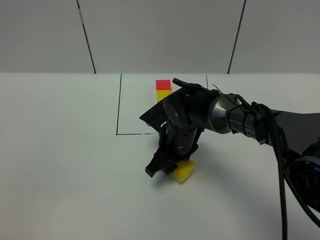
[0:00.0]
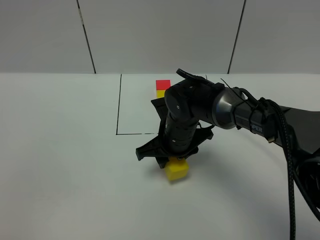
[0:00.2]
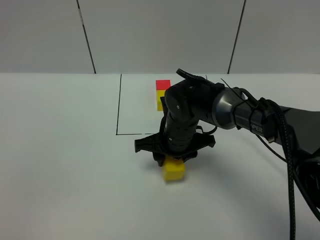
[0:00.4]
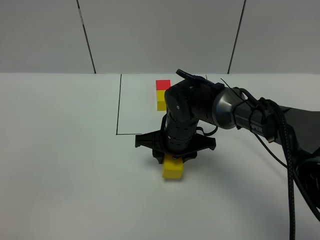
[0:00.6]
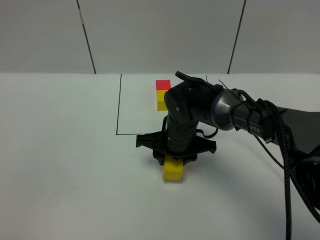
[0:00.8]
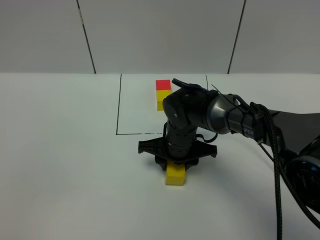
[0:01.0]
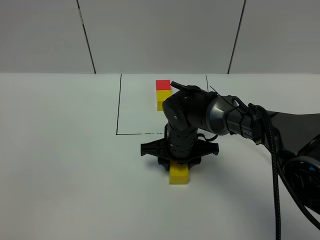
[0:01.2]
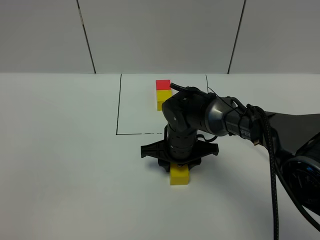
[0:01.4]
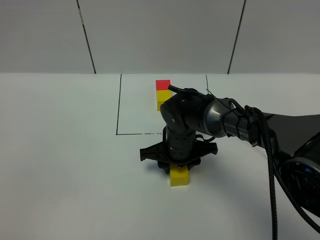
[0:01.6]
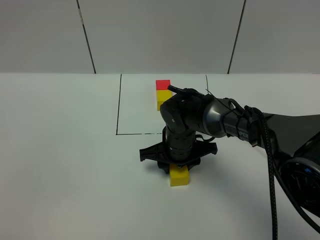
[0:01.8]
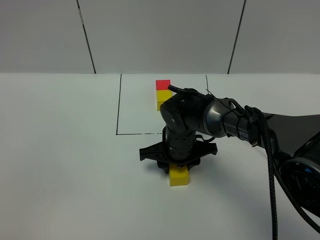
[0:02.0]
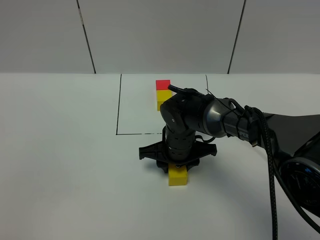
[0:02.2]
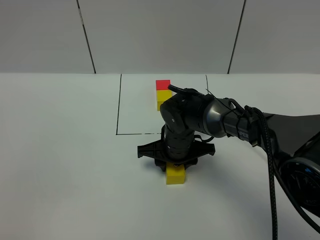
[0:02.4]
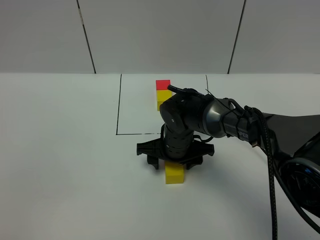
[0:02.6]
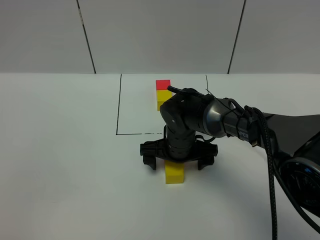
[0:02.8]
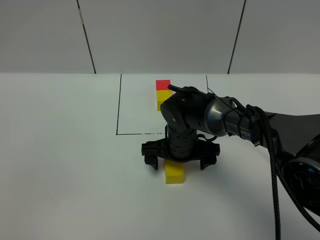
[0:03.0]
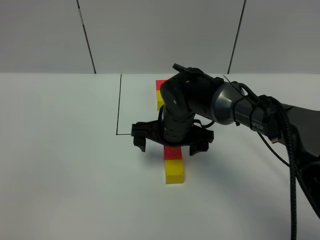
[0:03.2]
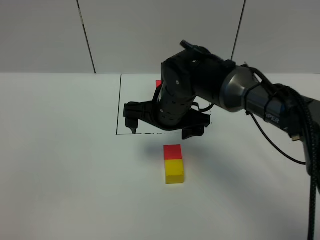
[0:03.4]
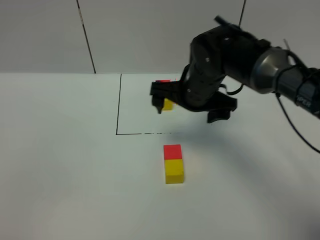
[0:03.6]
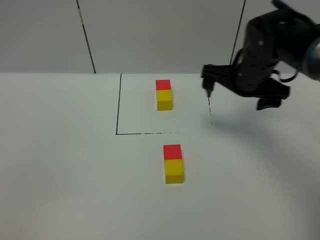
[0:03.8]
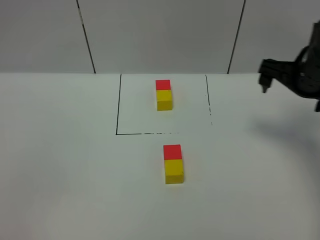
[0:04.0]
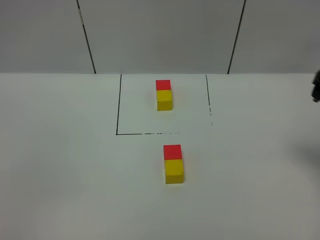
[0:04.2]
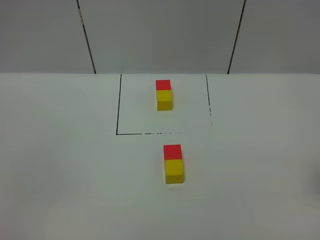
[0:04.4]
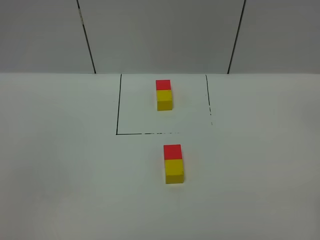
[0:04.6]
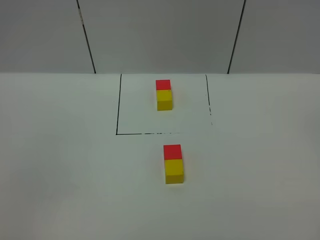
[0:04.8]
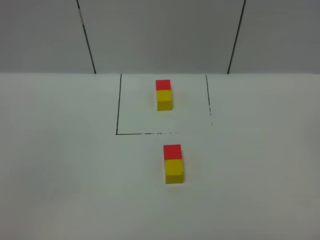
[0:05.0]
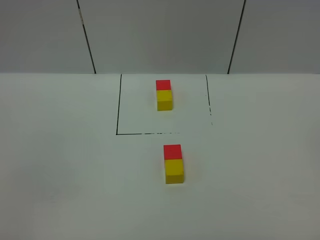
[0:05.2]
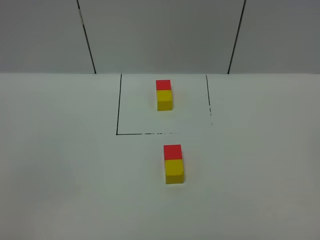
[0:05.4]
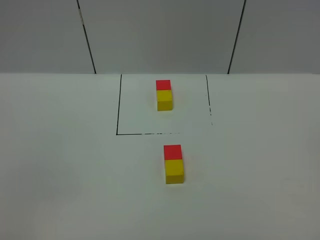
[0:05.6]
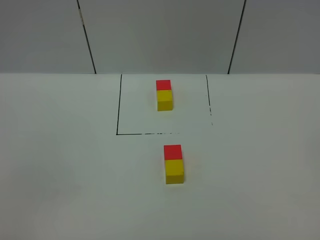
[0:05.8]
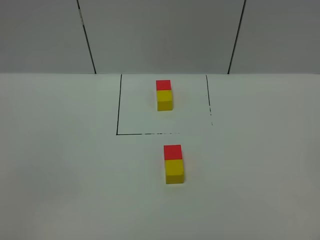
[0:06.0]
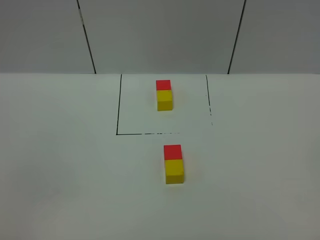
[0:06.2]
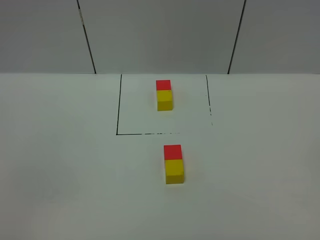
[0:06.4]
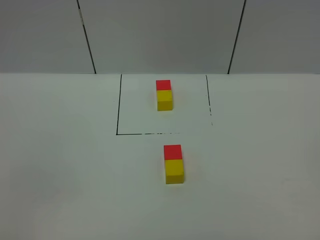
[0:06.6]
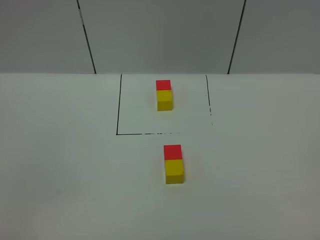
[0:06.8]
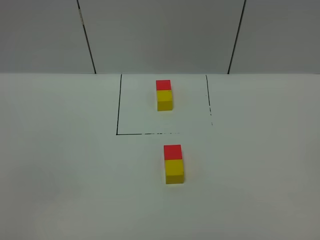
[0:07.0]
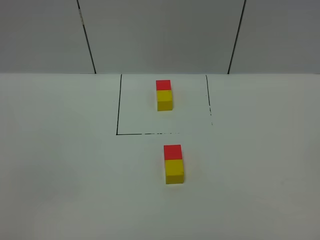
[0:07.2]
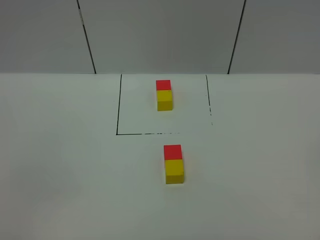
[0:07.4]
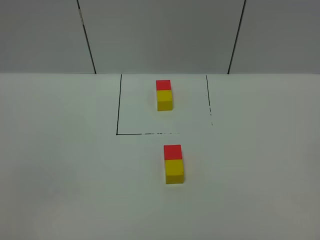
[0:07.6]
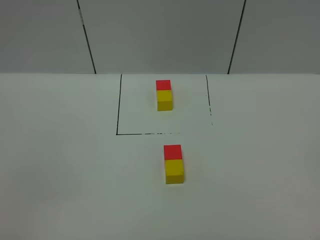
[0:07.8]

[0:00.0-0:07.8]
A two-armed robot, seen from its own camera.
Task of the whole recording: According to the building block template in front, assemble the scattered blocks together.
Step, 0.0 to 3.6 s: Adjust the pose of the building blocks.
1.6 to 3.2 s: The right gripper heads upward, covering approximately 5 cm, and opens up.
3.2 to 4.6 s: The right gripper heads to the right and backward, covering roughly 40 cm.
6.2 to 7.8 s: Both grippers stay about where they are.

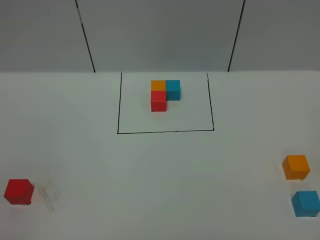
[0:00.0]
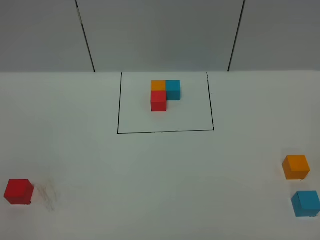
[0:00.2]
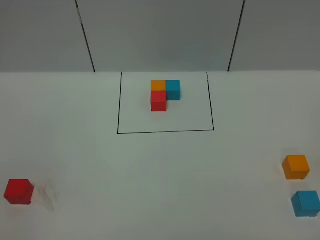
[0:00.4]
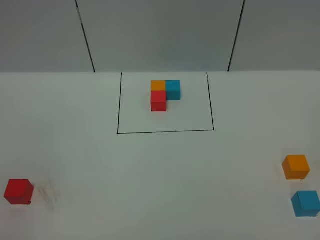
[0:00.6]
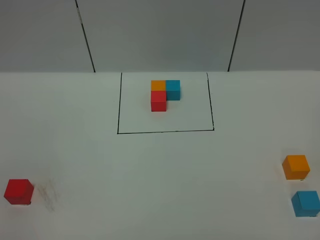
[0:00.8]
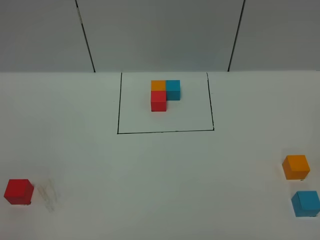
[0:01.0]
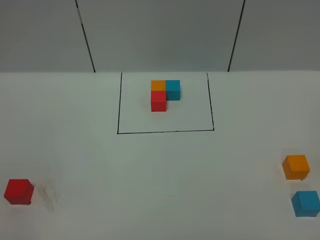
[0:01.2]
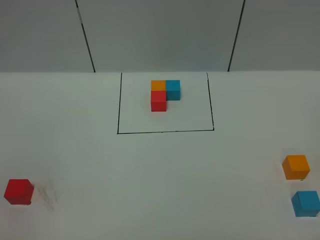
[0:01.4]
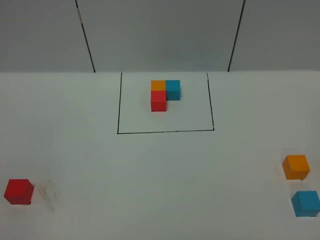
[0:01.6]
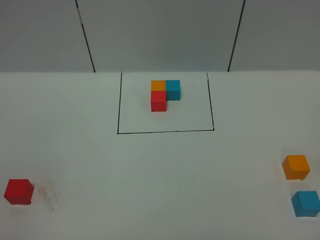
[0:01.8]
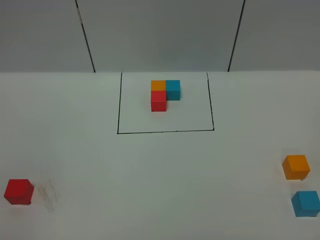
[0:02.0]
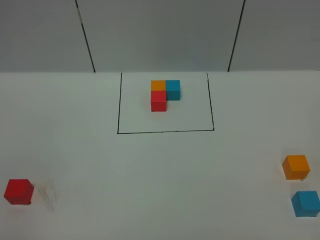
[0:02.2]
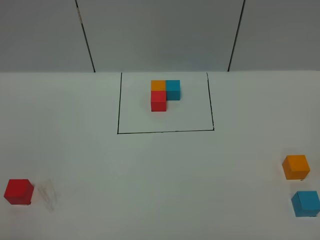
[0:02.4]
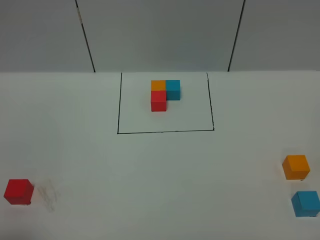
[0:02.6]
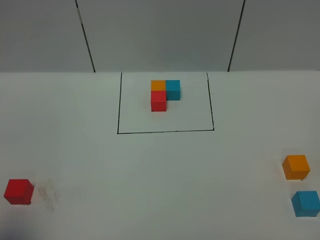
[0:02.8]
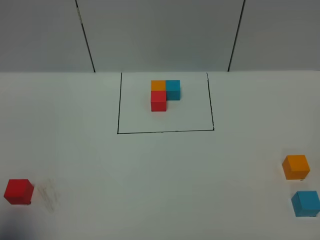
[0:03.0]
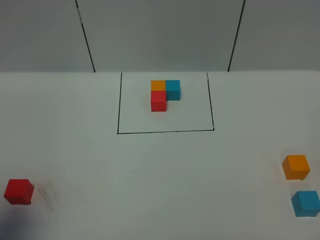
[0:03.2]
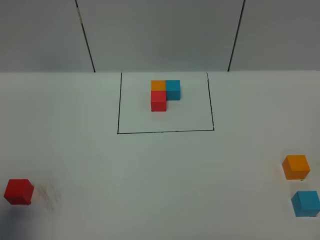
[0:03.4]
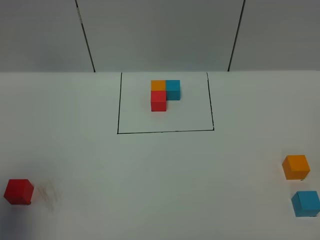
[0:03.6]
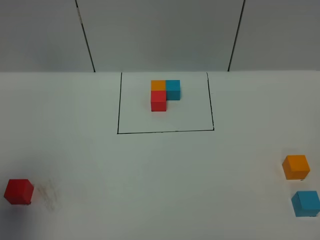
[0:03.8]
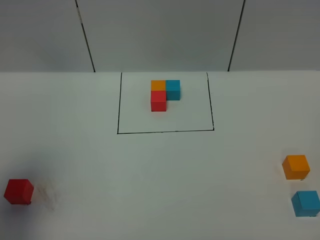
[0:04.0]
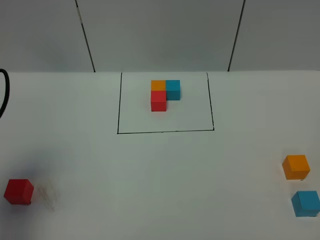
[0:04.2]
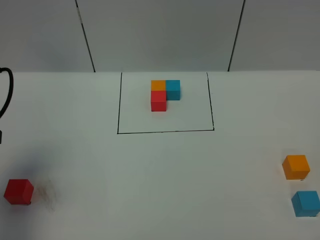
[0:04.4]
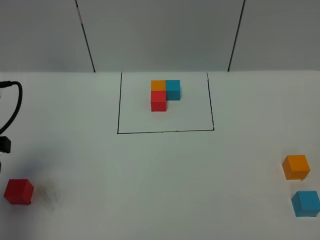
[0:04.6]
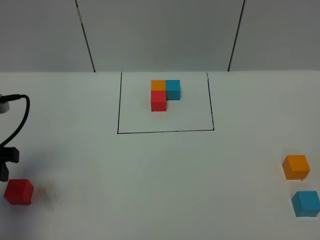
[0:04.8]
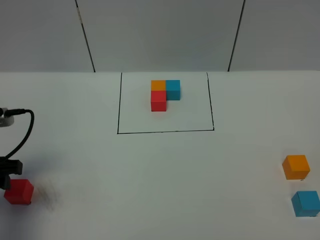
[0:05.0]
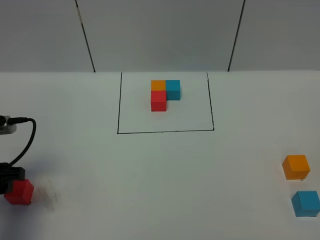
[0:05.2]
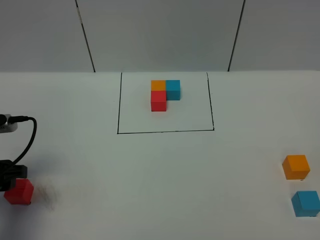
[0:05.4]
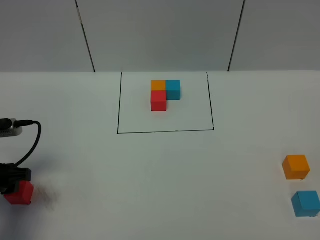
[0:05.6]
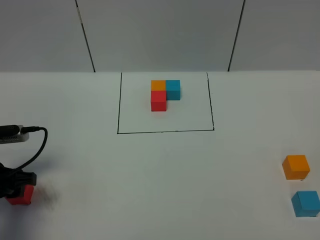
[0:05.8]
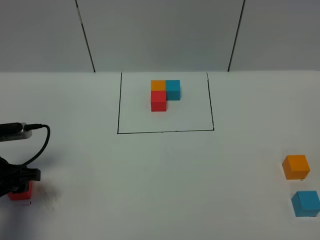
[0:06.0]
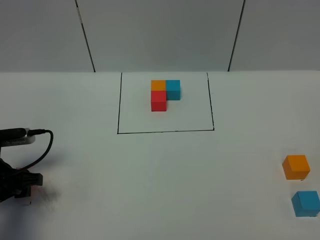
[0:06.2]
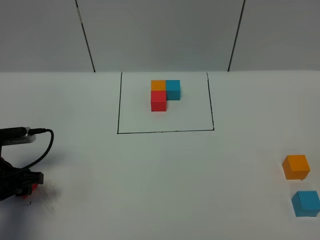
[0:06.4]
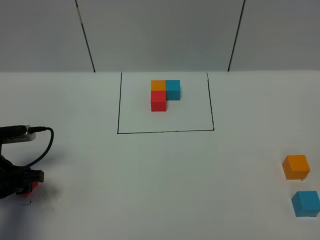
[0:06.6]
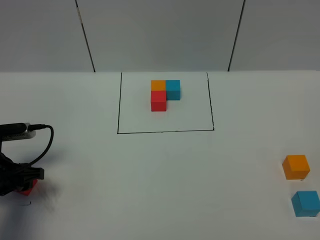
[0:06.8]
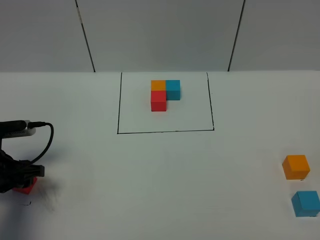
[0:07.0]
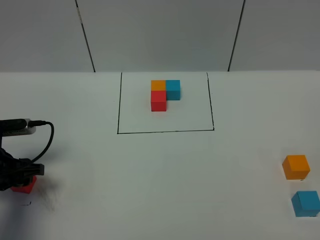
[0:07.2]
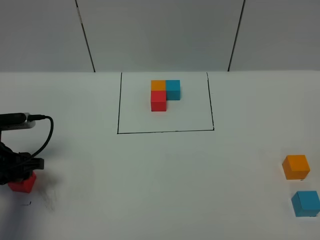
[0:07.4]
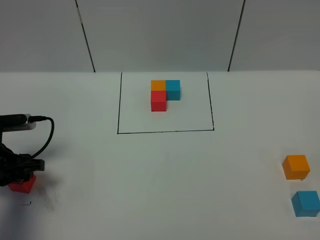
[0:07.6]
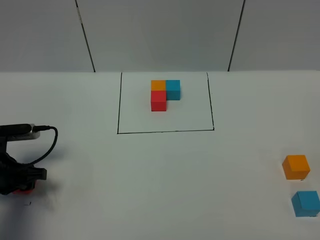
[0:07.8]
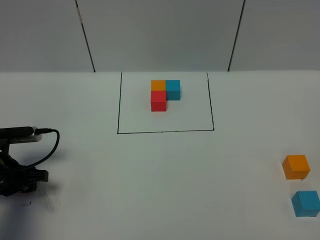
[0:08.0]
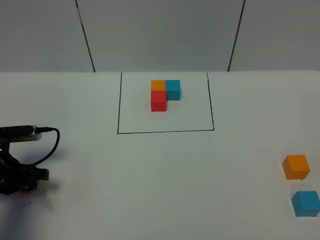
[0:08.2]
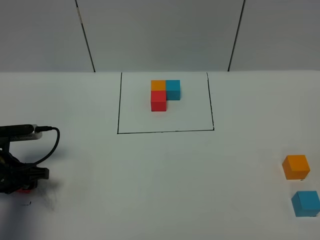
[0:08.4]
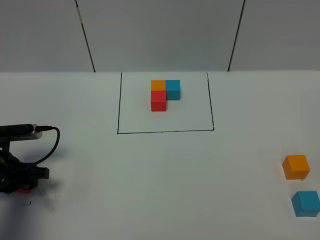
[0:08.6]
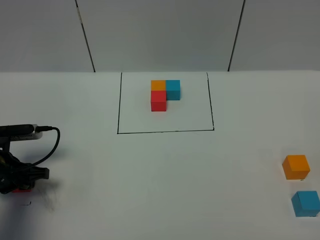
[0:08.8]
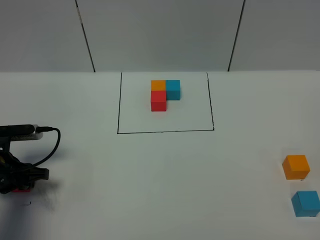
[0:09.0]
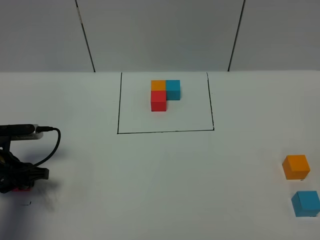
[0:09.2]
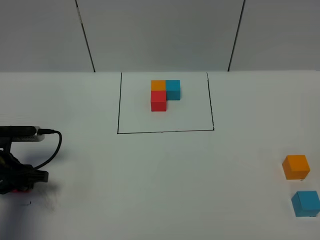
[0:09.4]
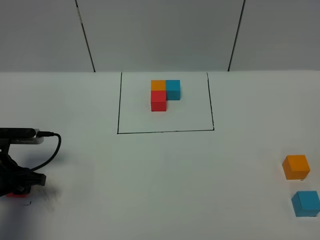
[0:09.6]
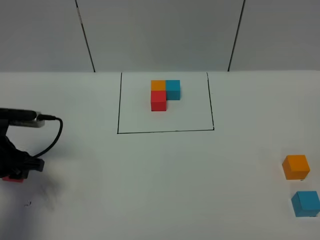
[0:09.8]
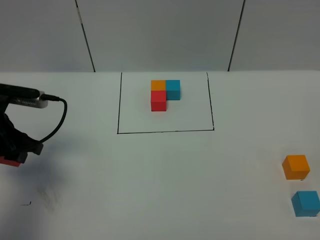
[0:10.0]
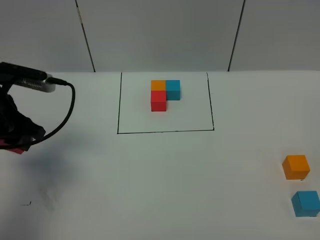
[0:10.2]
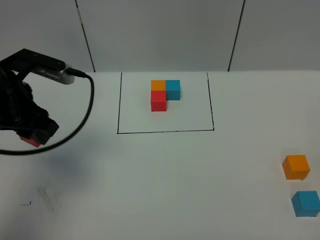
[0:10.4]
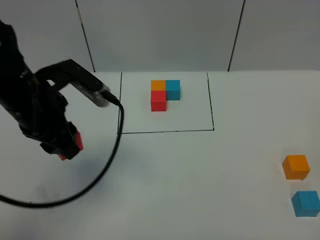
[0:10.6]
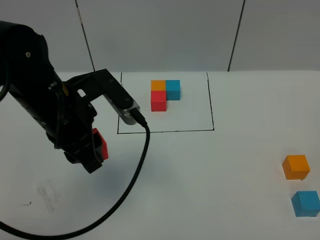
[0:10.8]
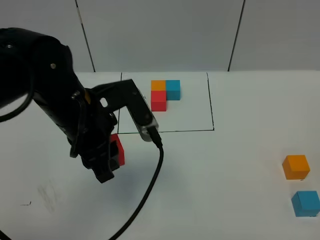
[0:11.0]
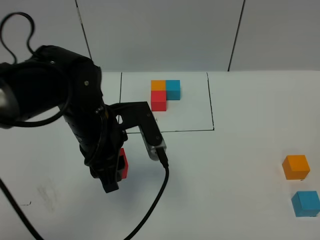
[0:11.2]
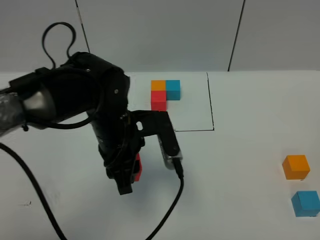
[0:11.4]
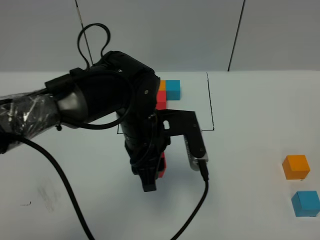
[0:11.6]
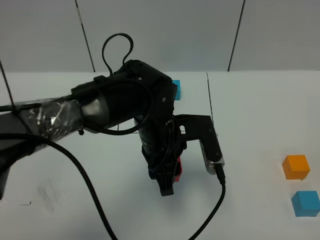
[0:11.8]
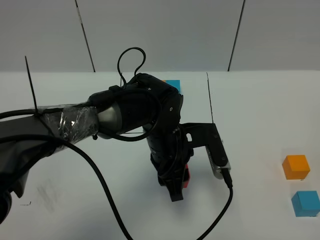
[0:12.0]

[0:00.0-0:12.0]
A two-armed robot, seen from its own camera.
Task of the whole recording: According to the building block template in front, assemble the scattered blocks together.
0.0 to 1.6 s: Both grippers stay put.
1.6 to 3.0 s: The left gripper shifts approximately 15 cm forward and upward, and closes.
3.0 to 4.4 s: The left gripper travels forward by about 15 cm.
4.4 to 6.0 s: The left gripper moves downward, some 15 cm.
6.0 to 7.6 s: The grippers stay close to where they were, moving slightly.
7.6 to 9.0 s: The left gripper closes up.
9.0 to 10.4 s: The left gripper heads upward and to the right, covering some 20 cm.
10.4 to 12.0 s: The left gripper heads to the right and downward, covering approximately 25 cm.

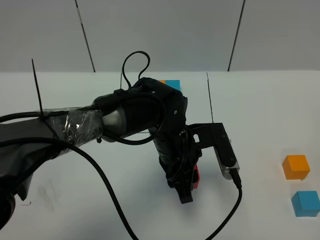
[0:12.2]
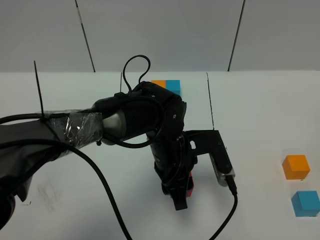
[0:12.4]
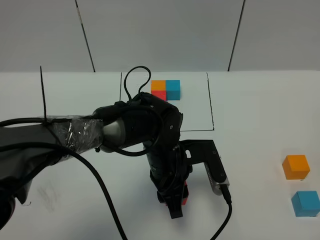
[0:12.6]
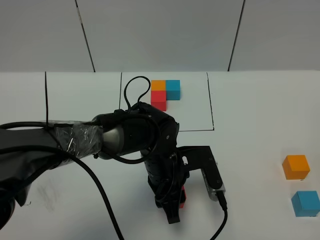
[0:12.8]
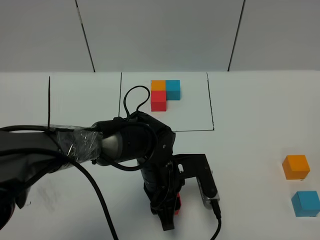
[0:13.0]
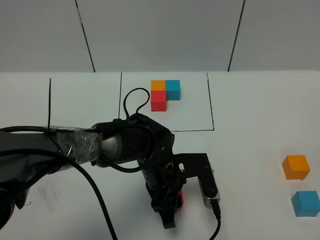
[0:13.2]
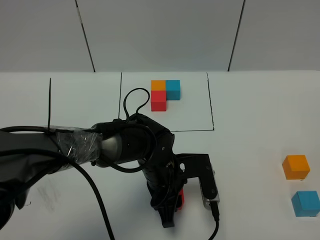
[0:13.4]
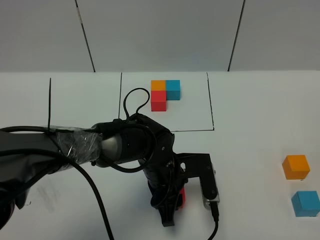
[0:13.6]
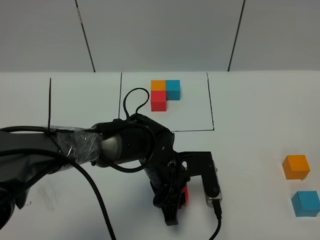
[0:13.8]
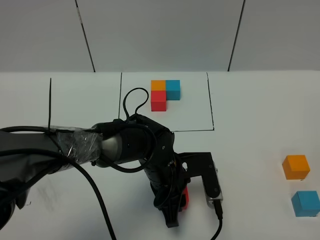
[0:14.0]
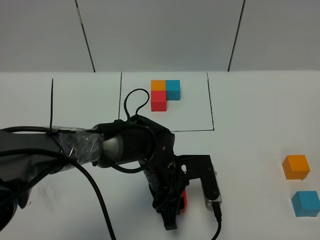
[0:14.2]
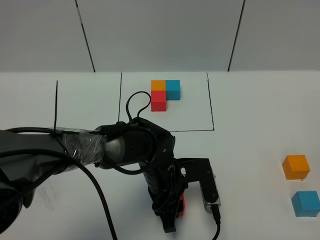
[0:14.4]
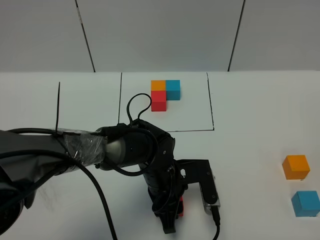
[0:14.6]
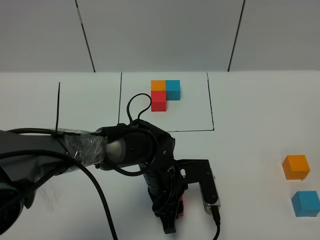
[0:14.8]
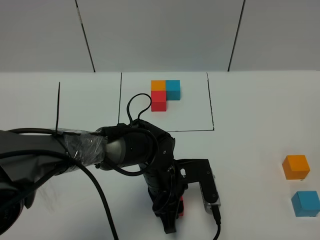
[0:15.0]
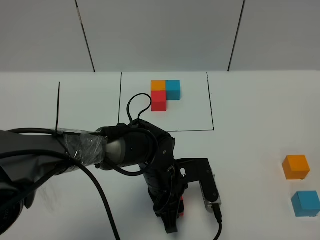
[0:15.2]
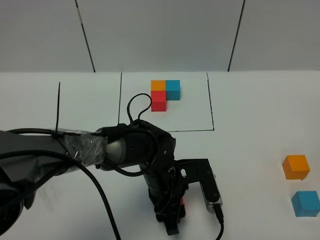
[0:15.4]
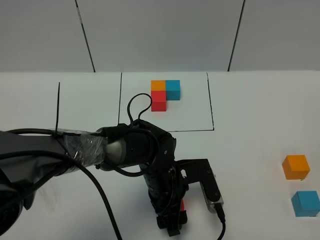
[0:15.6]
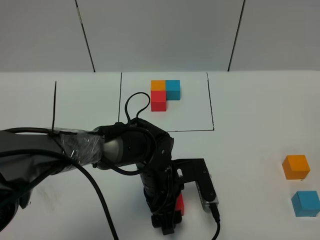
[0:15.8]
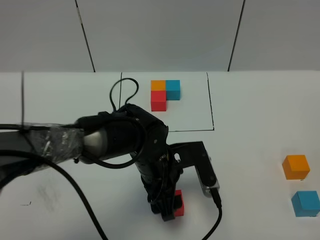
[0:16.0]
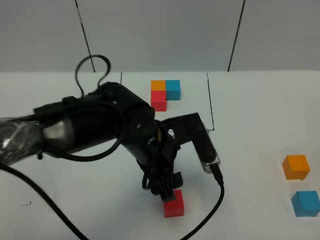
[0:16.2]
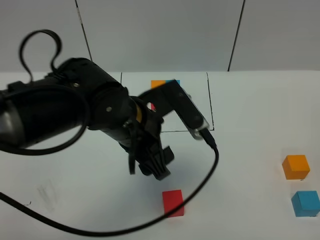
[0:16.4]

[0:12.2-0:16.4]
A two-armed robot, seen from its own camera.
Task of the whole recording: According to the building block template in front, assemble the scattered blocks together.
Step, 12.2 to 16.0 s: Put the red cube in the center of the table.
12.2 to 13.6 s: The left gripper travels downward by some 5 cm.
13.6 to 15.0 s: There are only small adjustments of the grippers.
15.0 to 16.4 s: The left gripper is displaced upward by roughly 15 cm, and opens its fingers.
